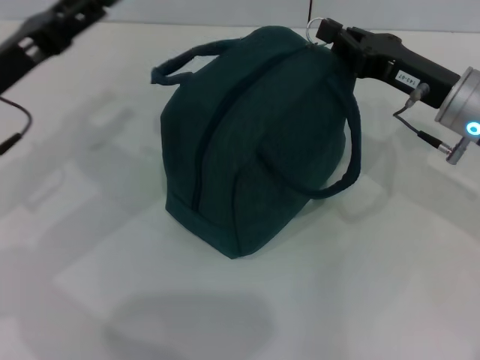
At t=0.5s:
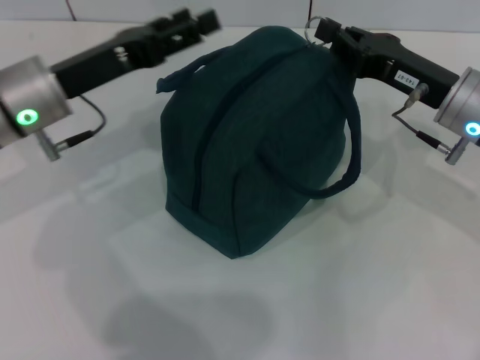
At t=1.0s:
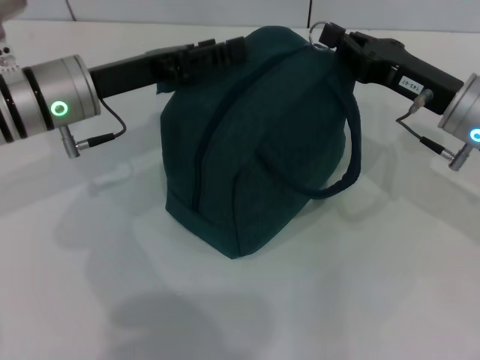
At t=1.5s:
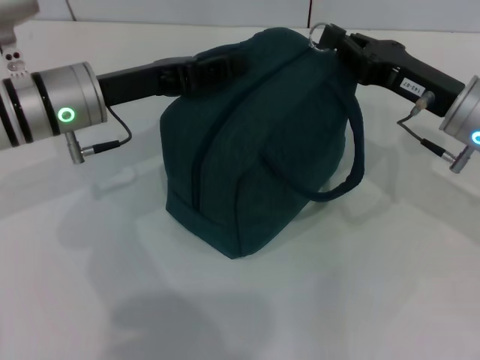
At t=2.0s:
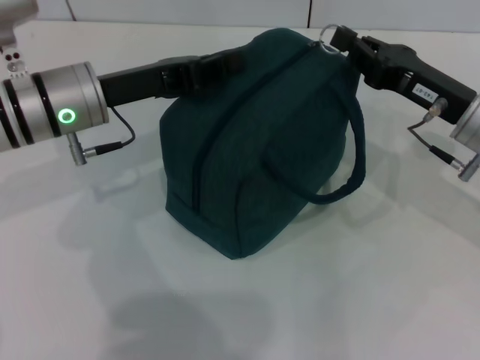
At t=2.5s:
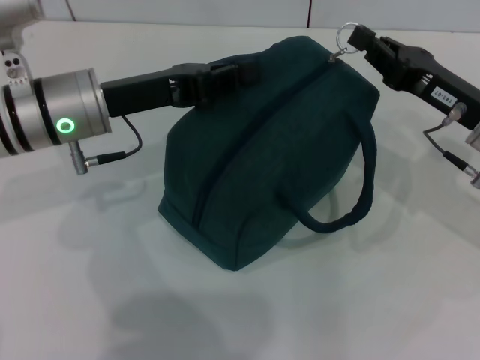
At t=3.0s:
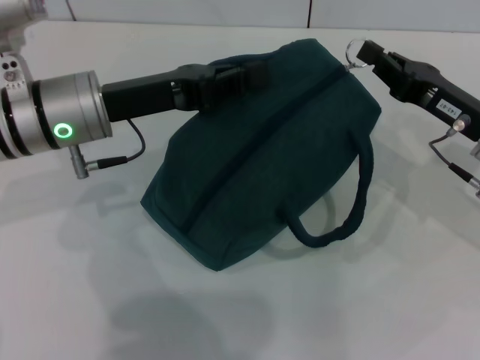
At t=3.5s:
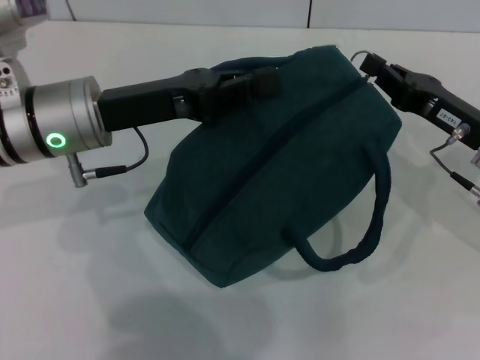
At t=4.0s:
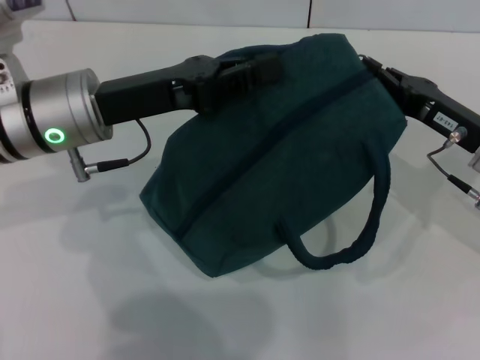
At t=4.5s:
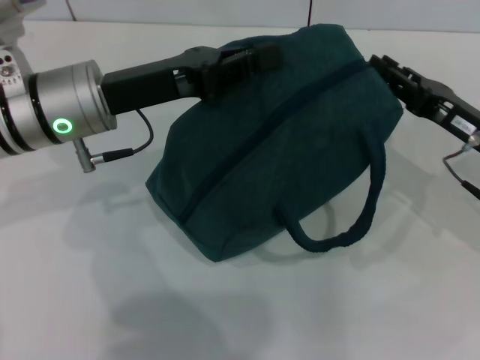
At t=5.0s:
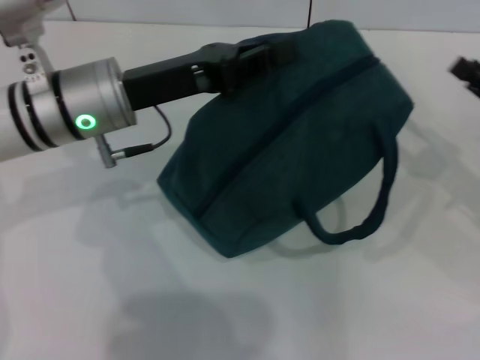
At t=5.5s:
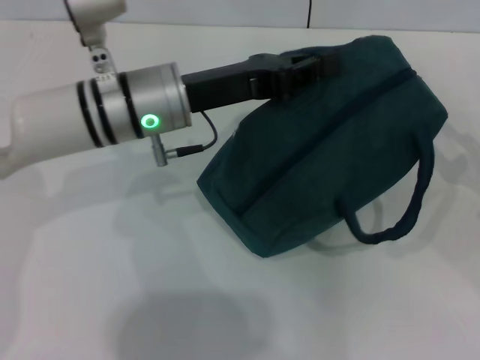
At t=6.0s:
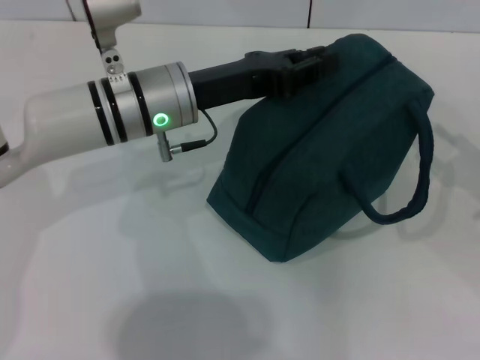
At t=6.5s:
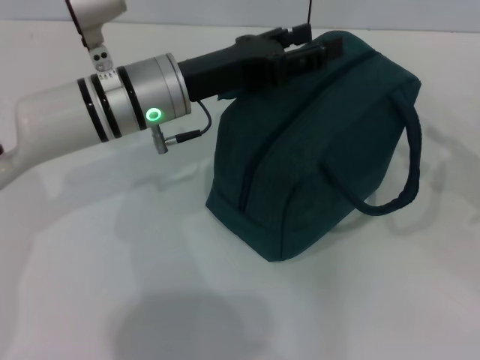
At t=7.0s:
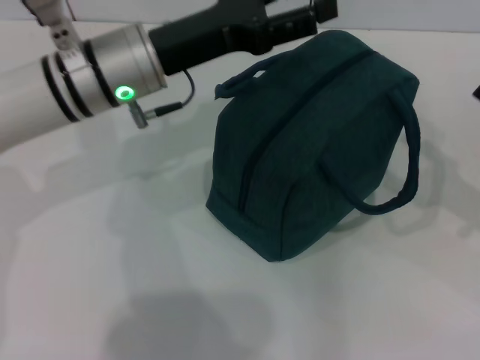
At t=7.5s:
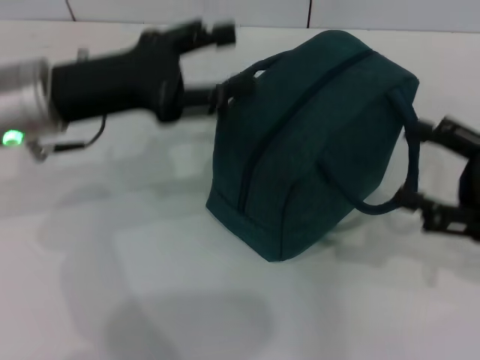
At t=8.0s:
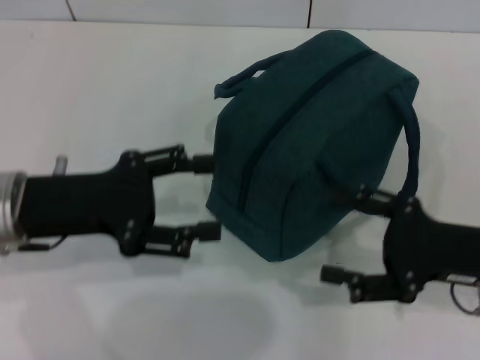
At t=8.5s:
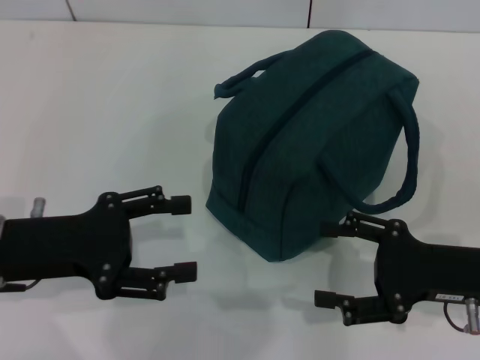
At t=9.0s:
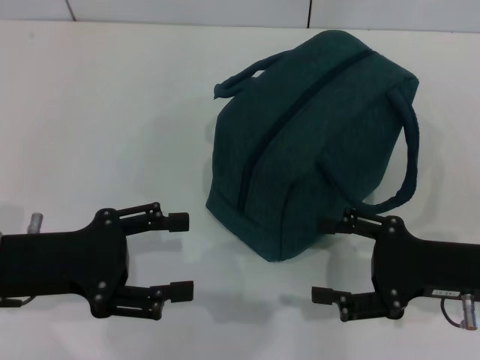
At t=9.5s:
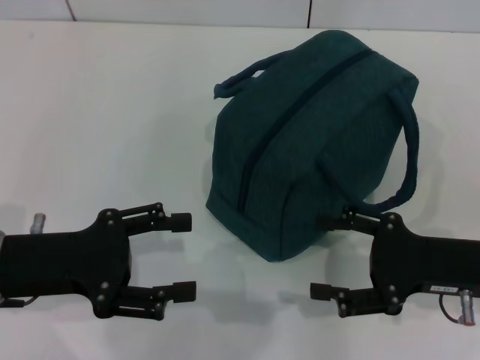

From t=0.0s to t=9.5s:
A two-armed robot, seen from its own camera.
Step, from t=0.0s to t=4.5s: Zip up the lunch bag with your right hand.
Step, from t=5.0s to t=6.5s: Hold the lunch bag with your left hand.
From t=0.0s to t=2.0s: The left gripper moves to the right, approximately 10 cm, and closes.
From t=4.0s to t=5.5s: The left gripper heads to the right, covering roughly 5 cm. The right gripper heads to the right and backward, covering roughly 15 cm, and opens its fingers.
From t=5.5s to t=7.5s: The left gripper goes roughly 10 cm to the left, and opens up; the right gripper travels to the left by some 5 cm.
From t=7.5s to t=9.5s: The left gripper goes some 10 cm backward and downward; the right gripper heads to the left, covering about 5 cm.
